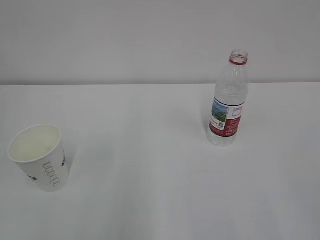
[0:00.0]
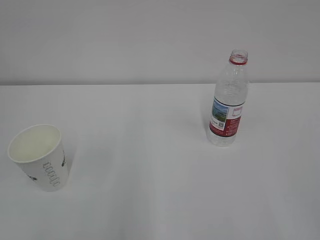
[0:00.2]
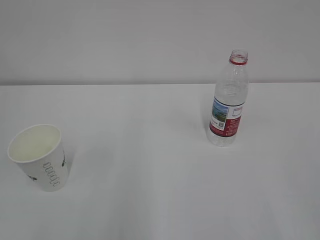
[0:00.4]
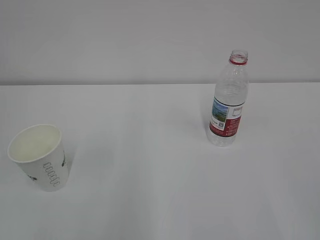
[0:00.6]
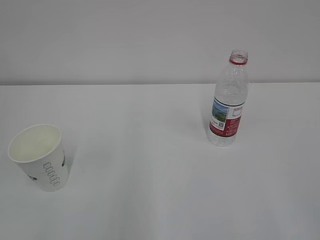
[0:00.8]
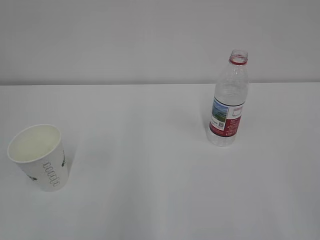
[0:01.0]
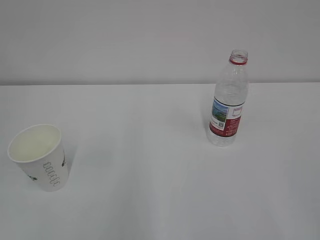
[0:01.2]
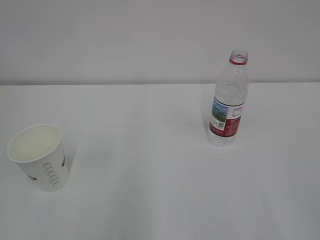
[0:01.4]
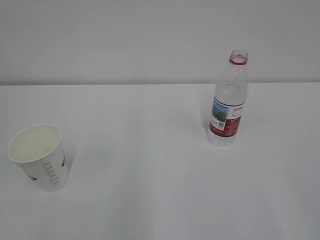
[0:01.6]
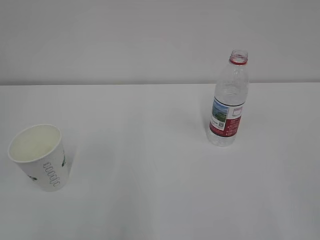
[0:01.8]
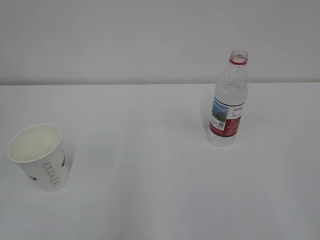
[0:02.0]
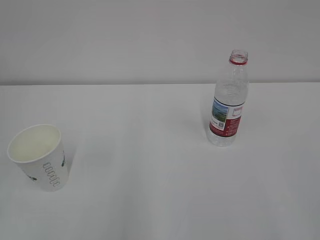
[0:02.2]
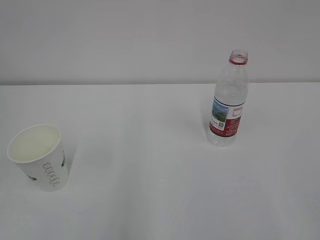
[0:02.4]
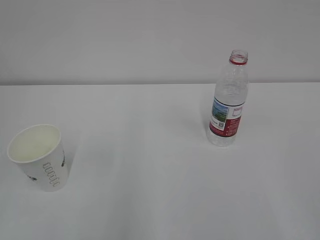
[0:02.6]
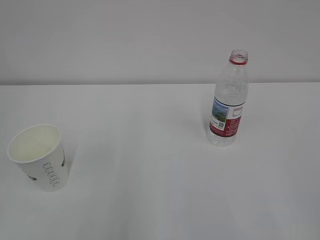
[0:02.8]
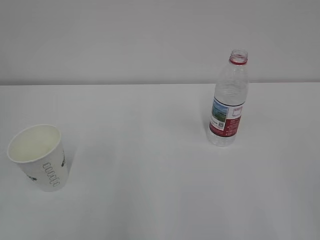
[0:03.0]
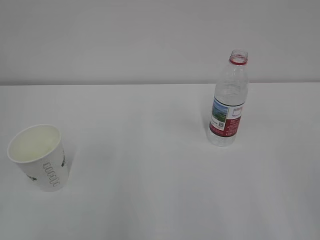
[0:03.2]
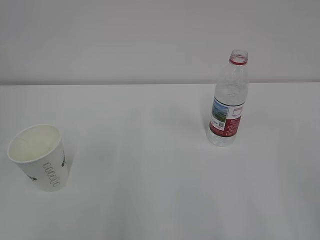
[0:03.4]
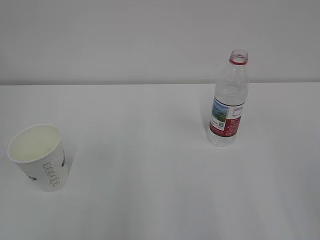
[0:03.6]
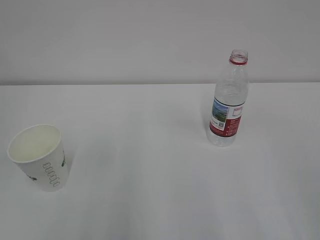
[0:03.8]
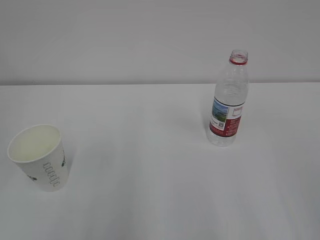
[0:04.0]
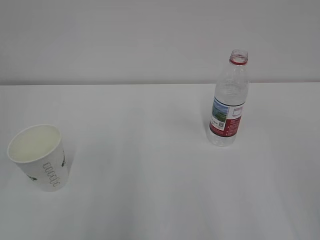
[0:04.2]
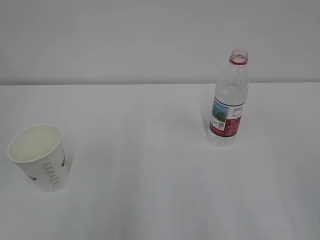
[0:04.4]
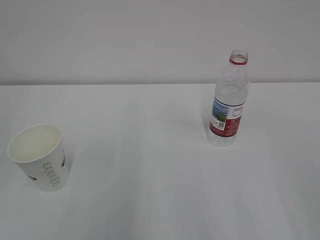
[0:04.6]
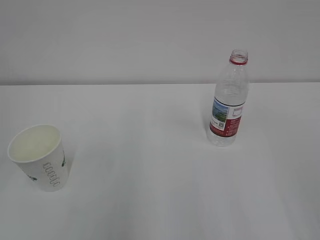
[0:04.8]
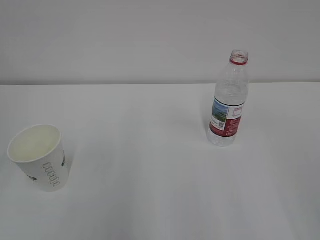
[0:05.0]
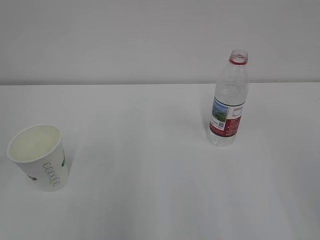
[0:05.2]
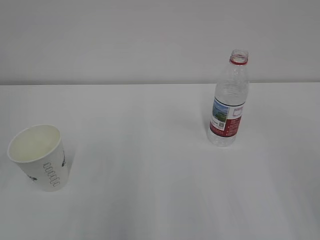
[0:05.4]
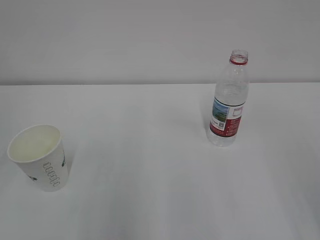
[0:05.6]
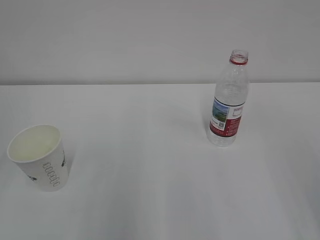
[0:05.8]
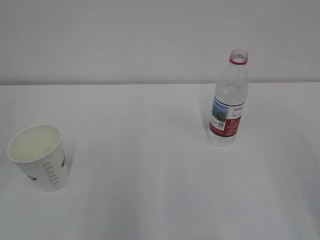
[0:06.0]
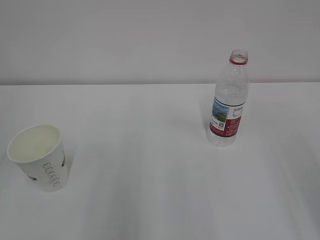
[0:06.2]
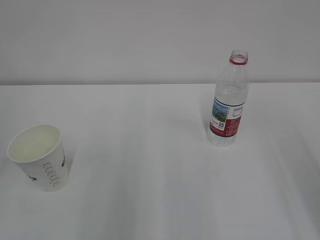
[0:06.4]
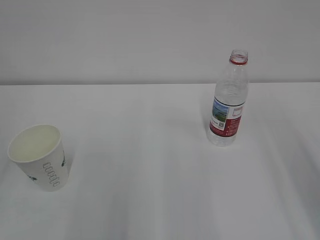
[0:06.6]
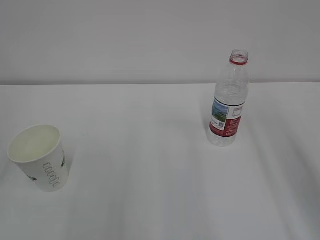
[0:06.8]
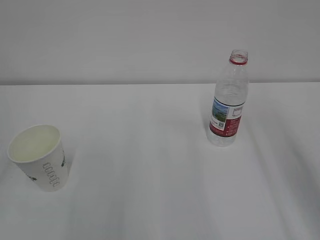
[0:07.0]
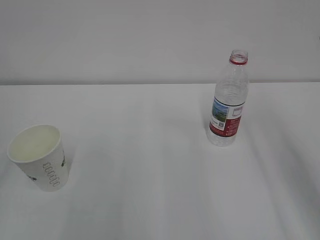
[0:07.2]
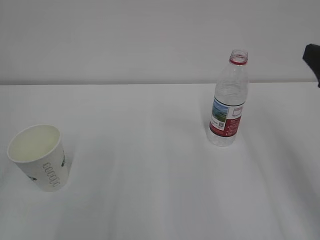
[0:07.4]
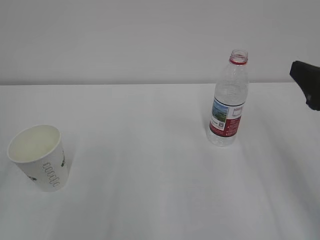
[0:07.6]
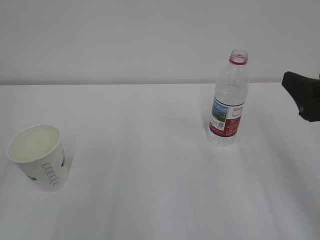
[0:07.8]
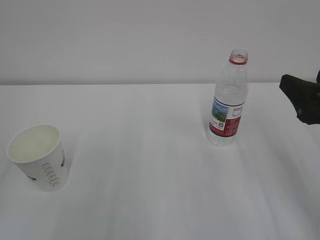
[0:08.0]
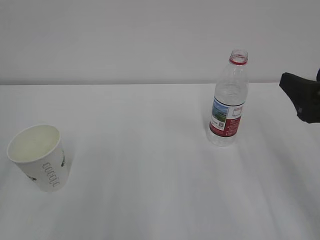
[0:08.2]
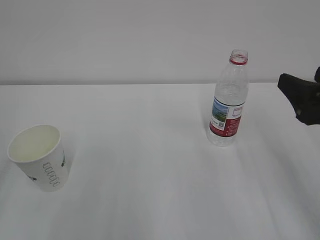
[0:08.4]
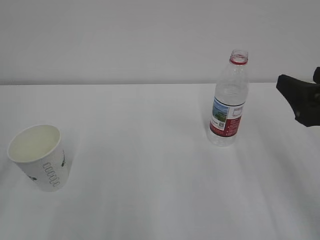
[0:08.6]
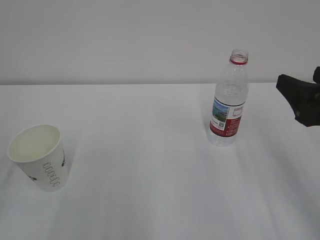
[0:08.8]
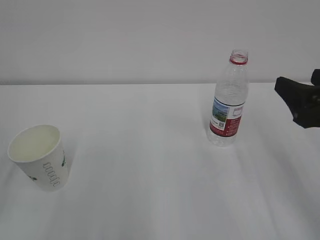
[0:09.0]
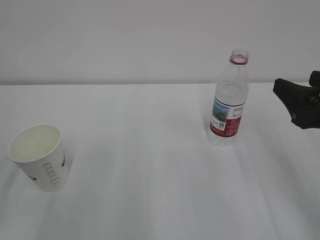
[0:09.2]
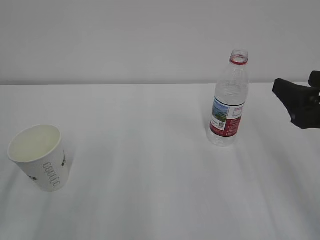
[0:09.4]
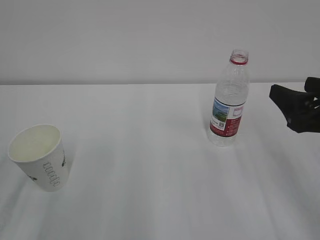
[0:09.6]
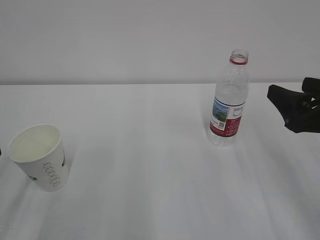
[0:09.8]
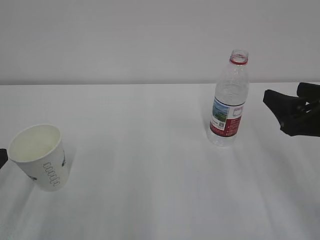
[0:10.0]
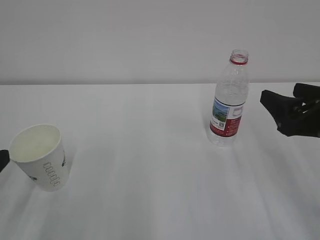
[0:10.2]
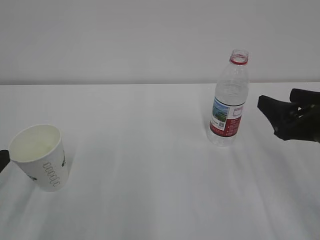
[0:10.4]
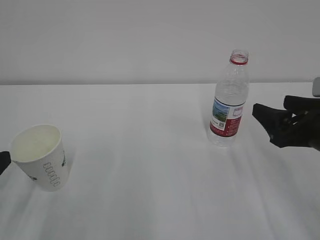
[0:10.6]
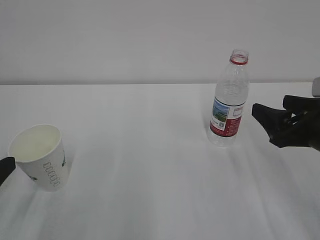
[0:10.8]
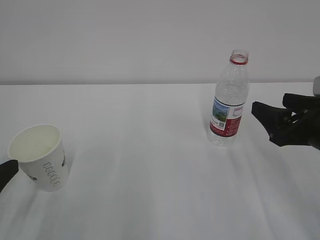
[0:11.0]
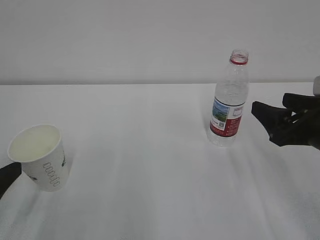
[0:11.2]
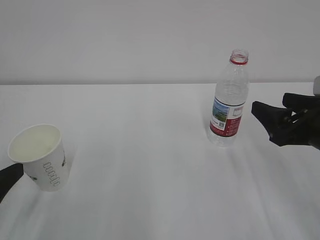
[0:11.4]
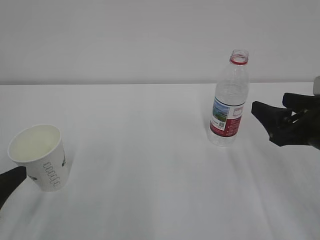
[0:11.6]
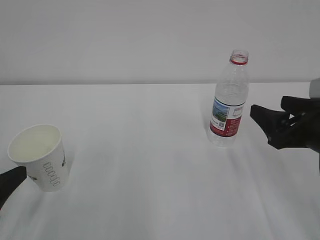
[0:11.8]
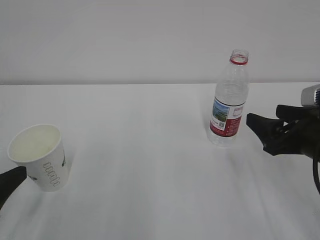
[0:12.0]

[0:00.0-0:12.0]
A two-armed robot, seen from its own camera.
0:06.0 to 0:07.6: The right gripper shifts some 15 cm forward and downward.
0:07.6 to 0:09.0: The grippers stay close to where they were, moving slightly.
0:10.4 to 0:12.0: The grippers make only small movements.

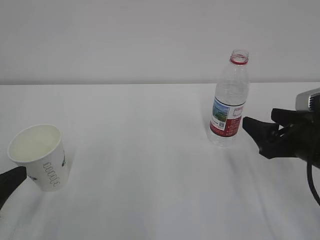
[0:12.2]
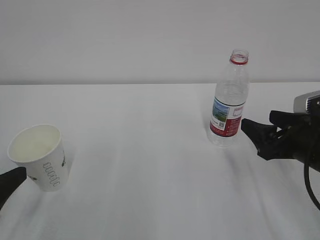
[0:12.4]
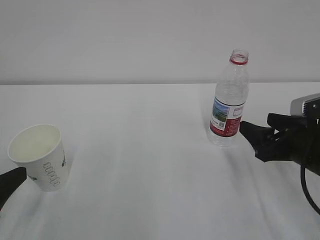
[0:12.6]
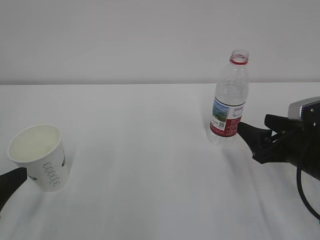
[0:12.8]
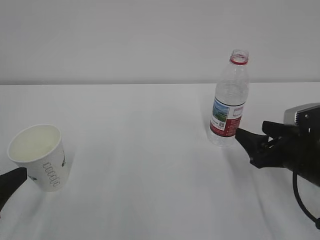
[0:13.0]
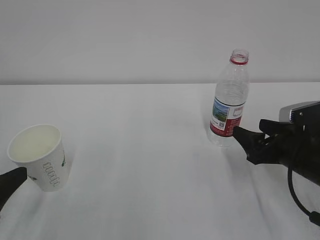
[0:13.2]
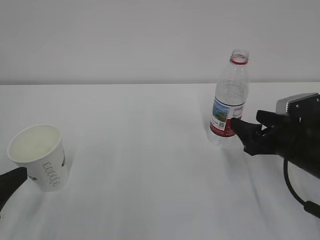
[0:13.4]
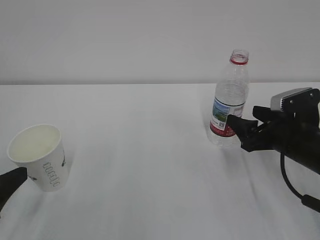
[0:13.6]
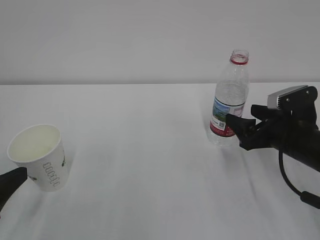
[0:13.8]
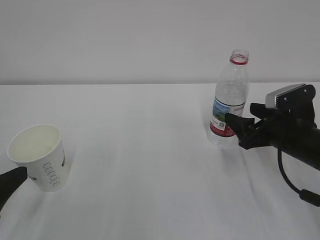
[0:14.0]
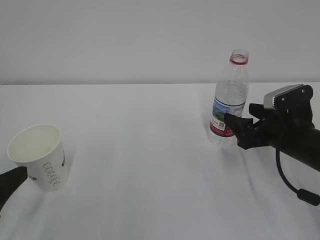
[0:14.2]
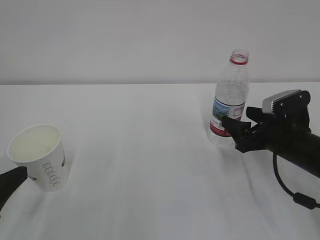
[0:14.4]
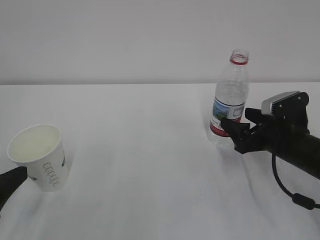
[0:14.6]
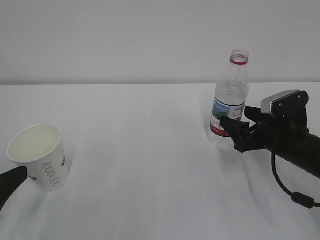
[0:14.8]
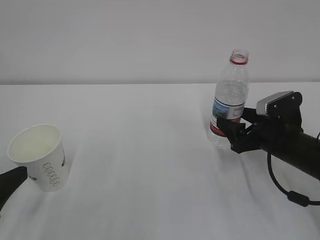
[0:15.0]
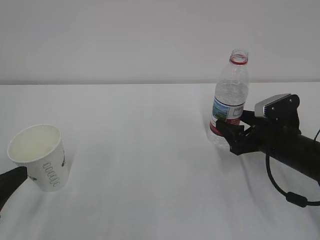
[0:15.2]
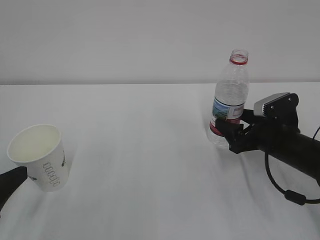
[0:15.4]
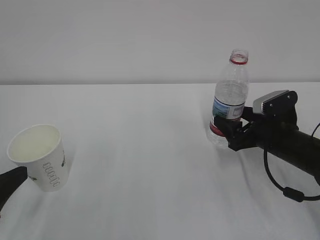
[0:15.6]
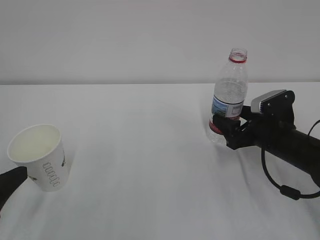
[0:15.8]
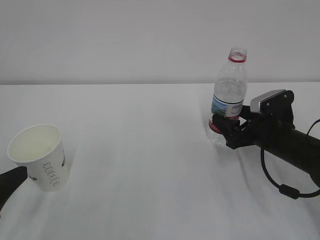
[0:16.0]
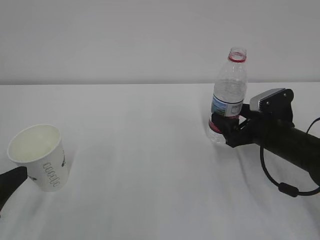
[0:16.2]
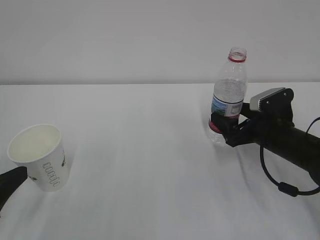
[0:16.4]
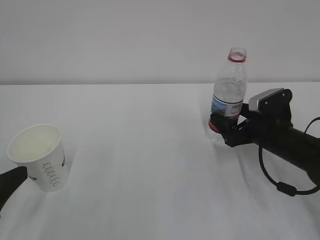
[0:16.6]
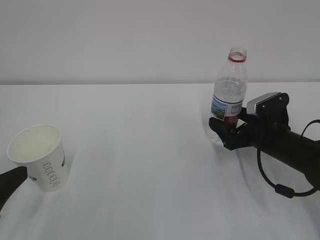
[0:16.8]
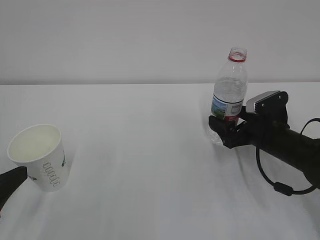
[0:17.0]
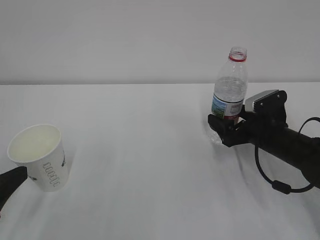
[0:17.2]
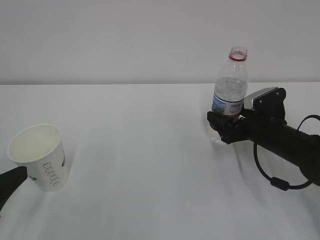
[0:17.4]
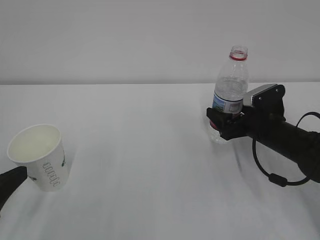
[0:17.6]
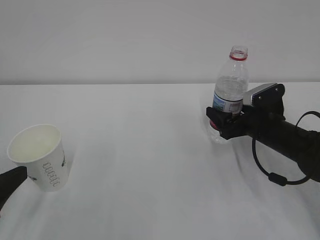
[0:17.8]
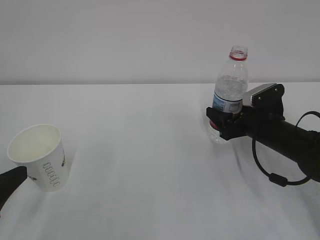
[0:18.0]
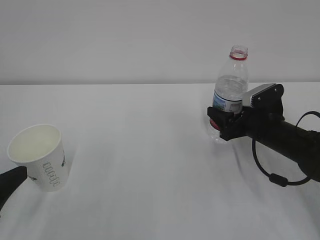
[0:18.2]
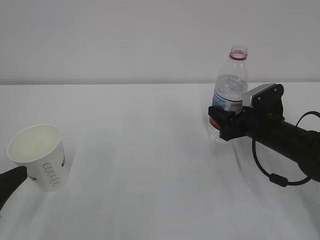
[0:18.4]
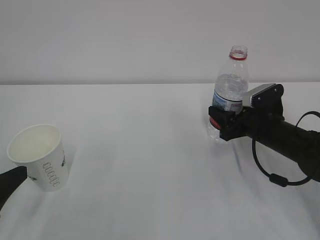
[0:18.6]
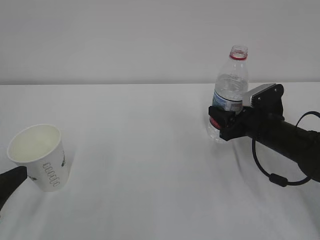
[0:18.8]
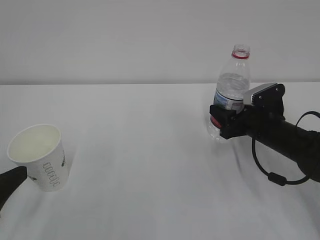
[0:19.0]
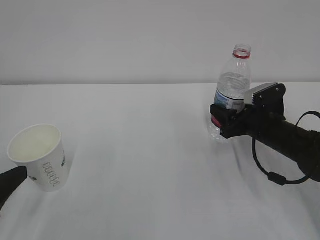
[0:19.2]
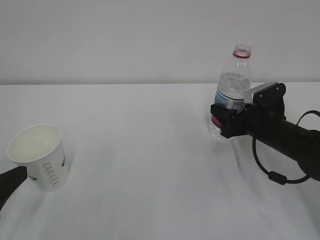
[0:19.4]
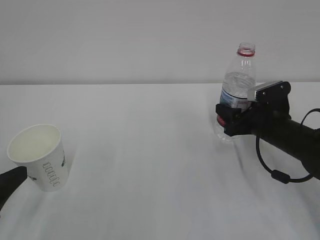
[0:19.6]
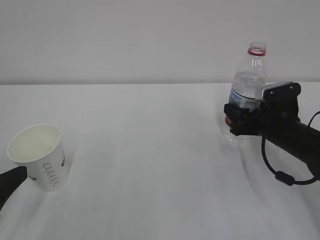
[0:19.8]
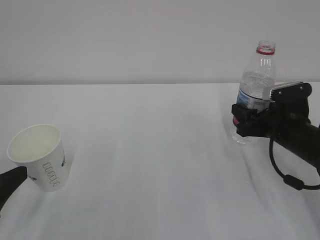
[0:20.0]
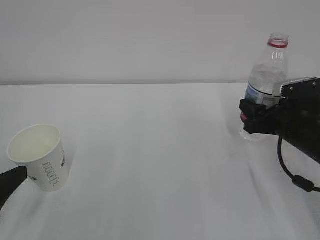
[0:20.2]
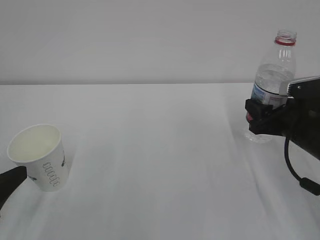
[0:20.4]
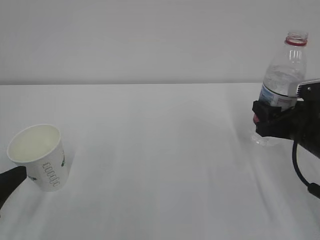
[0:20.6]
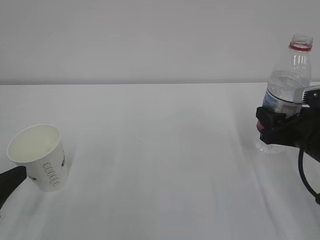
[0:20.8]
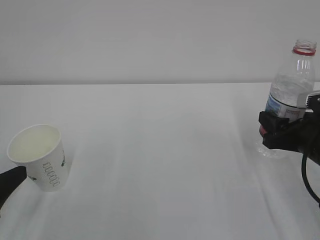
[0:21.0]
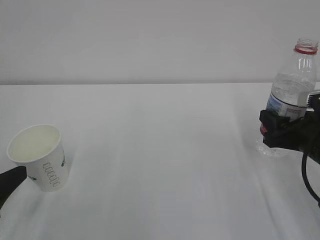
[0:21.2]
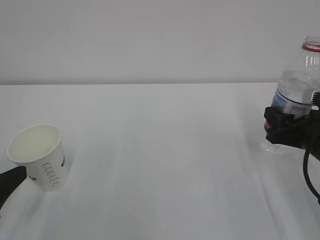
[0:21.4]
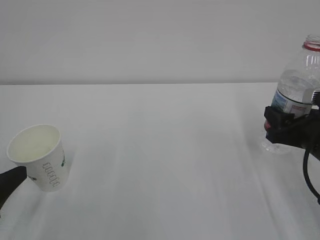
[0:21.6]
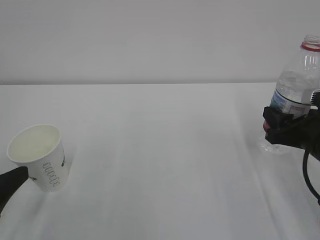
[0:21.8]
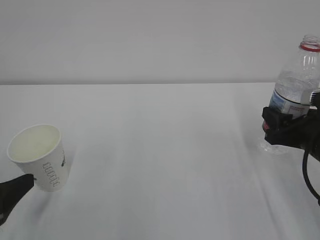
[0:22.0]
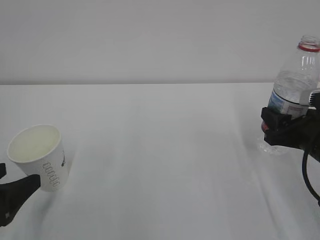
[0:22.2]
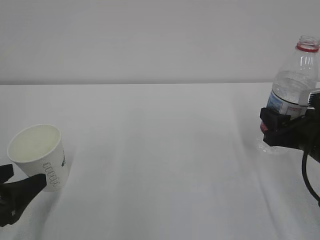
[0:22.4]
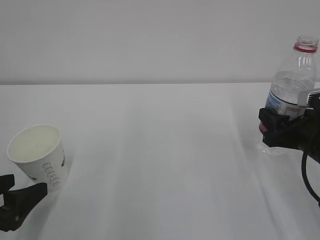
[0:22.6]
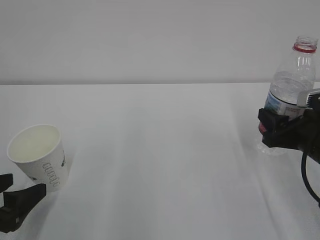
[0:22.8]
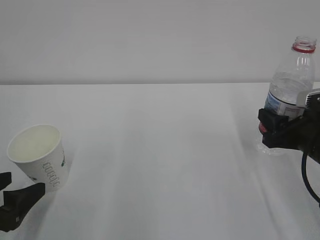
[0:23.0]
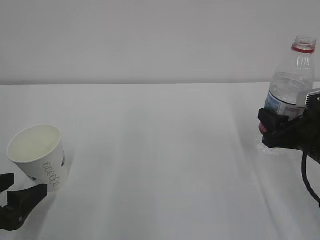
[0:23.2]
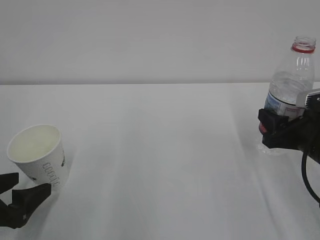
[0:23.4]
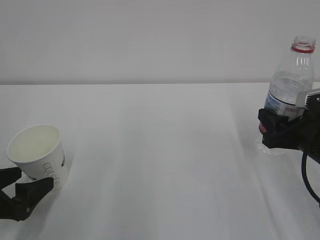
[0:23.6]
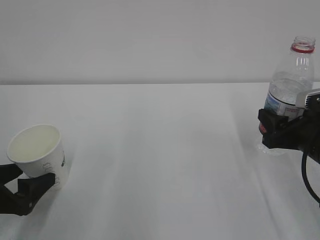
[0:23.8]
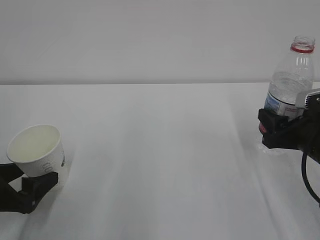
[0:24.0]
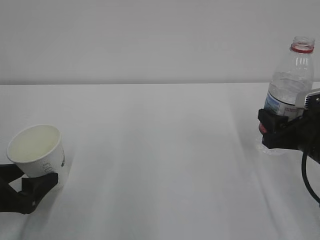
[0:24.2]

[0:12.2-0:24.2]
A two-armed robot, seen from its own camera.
0:12.2 to 0:13.8: The right gripper is displaced forward by roughly 5 cm.
0:13.8 to 0:16.6: The grippers move only a little.
0:16.6 to 0:18.2: The right gripper closes up.
0:18.2 to 0:19.8: The grippers stay close to where they were, moving slightly.
0:19.8 to 0:21.2: The right gripper goes about 10 cm backward.
0:21.2 to 0:22.6: The left gripper opens its fingers.
0:22.6 to 0:24.2: The grippers move only a little.
